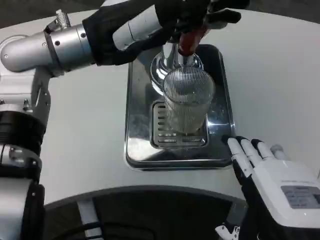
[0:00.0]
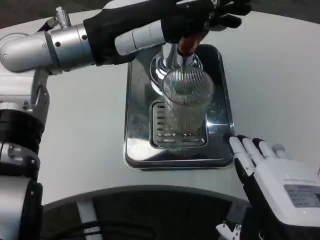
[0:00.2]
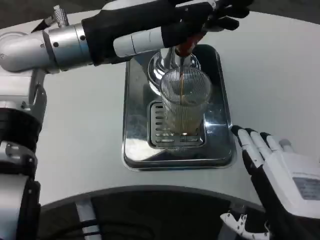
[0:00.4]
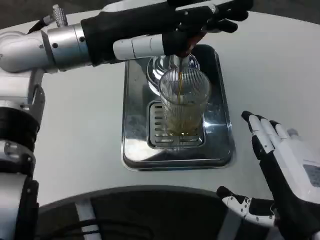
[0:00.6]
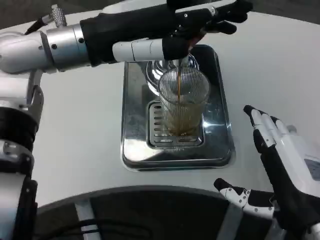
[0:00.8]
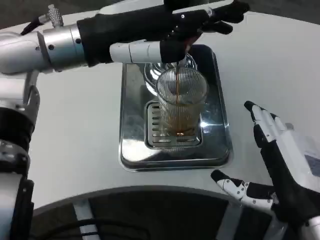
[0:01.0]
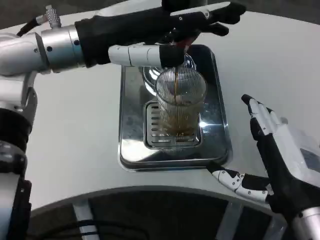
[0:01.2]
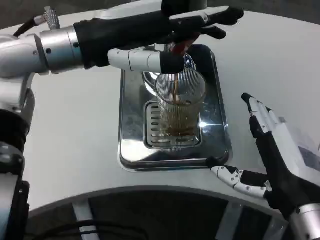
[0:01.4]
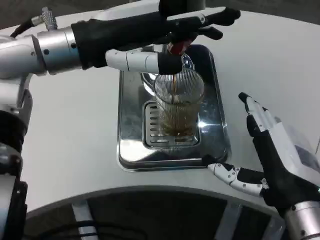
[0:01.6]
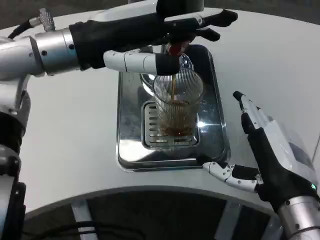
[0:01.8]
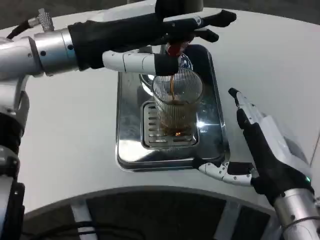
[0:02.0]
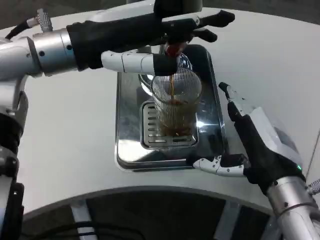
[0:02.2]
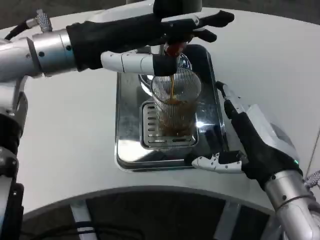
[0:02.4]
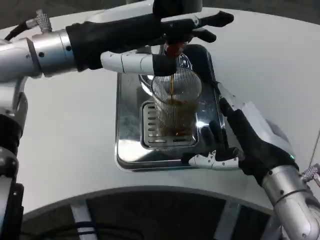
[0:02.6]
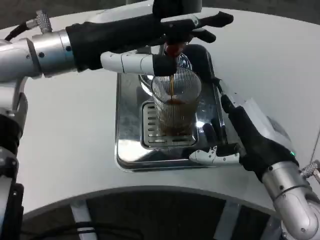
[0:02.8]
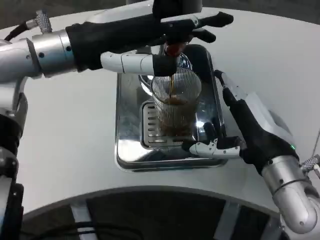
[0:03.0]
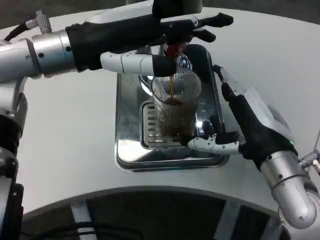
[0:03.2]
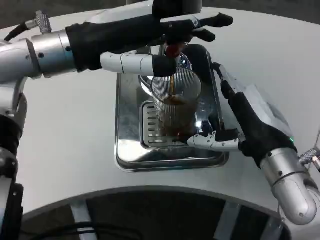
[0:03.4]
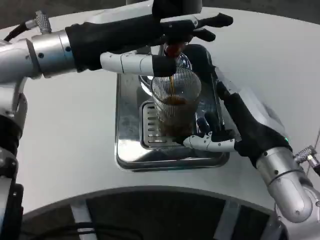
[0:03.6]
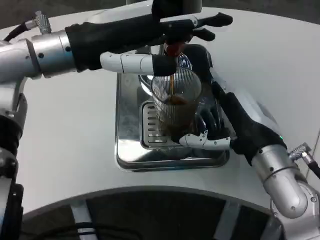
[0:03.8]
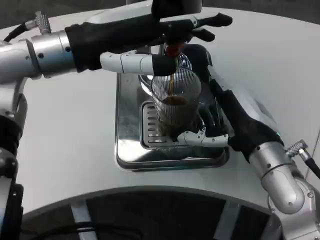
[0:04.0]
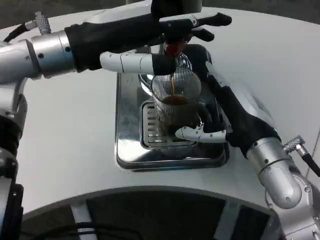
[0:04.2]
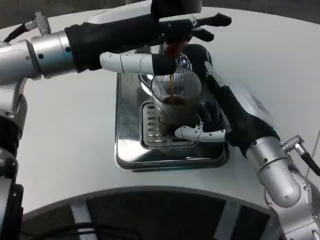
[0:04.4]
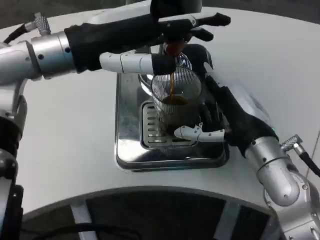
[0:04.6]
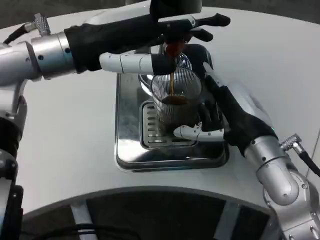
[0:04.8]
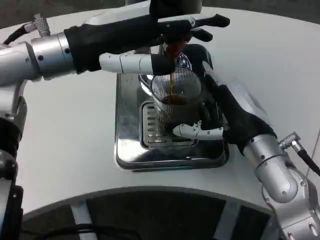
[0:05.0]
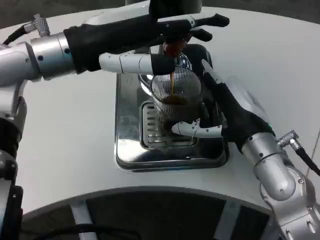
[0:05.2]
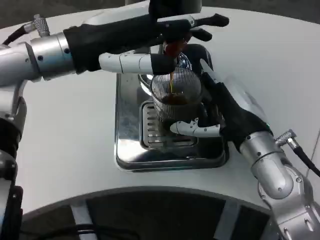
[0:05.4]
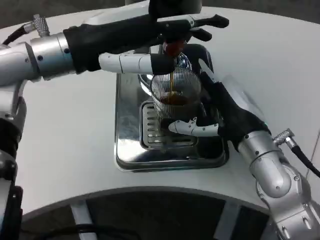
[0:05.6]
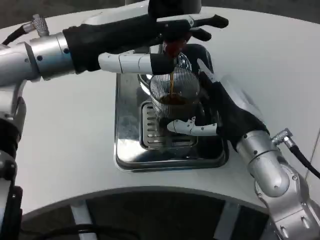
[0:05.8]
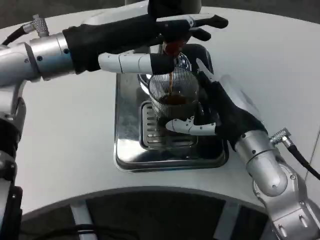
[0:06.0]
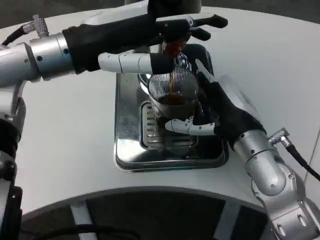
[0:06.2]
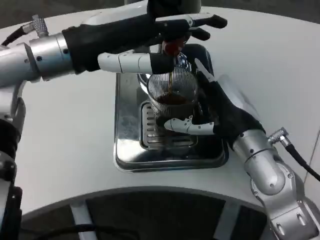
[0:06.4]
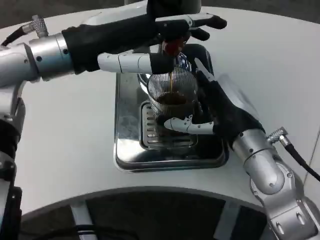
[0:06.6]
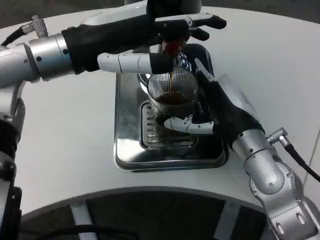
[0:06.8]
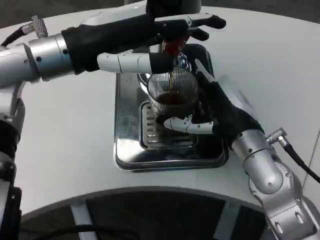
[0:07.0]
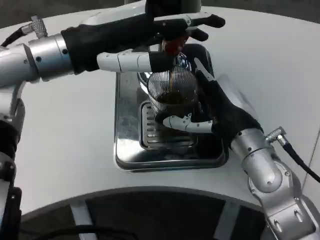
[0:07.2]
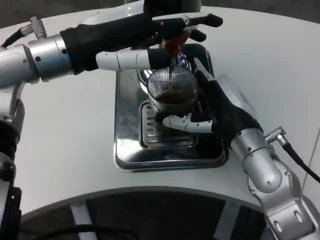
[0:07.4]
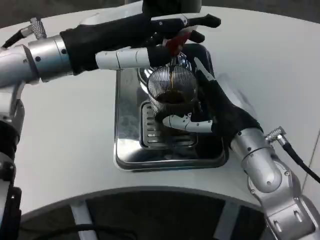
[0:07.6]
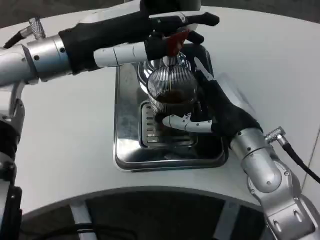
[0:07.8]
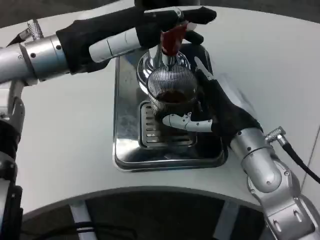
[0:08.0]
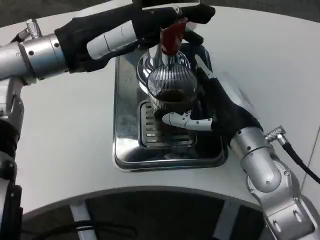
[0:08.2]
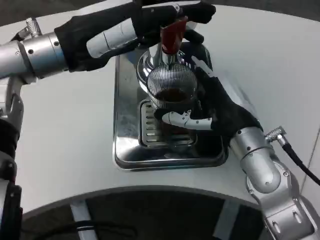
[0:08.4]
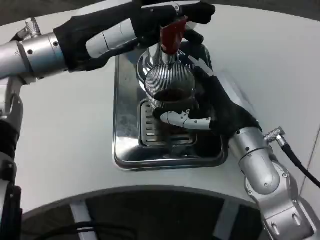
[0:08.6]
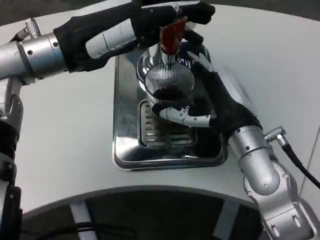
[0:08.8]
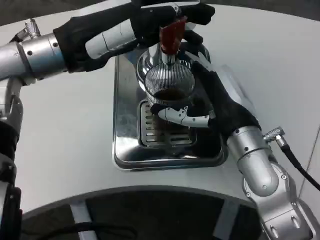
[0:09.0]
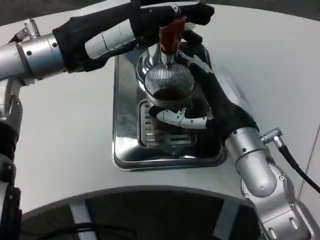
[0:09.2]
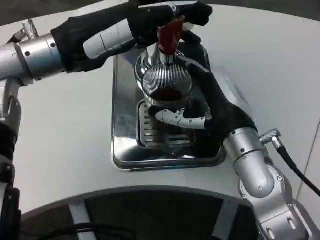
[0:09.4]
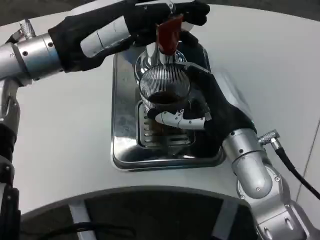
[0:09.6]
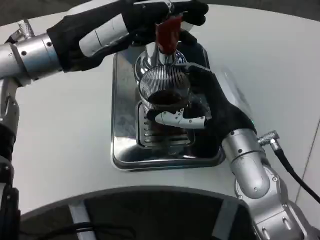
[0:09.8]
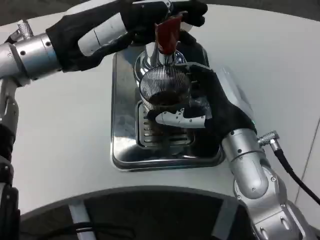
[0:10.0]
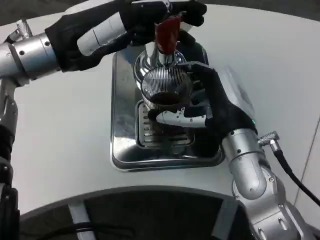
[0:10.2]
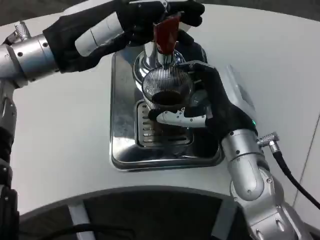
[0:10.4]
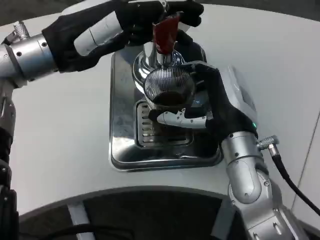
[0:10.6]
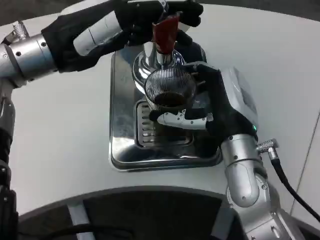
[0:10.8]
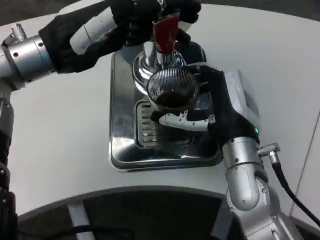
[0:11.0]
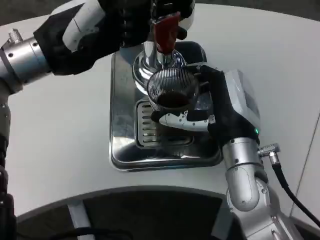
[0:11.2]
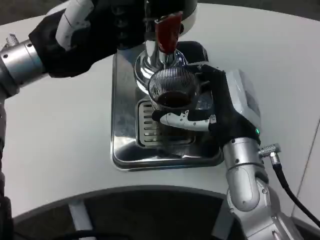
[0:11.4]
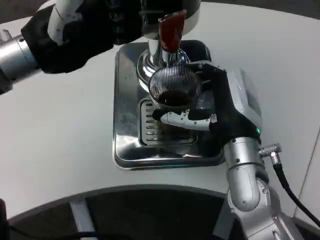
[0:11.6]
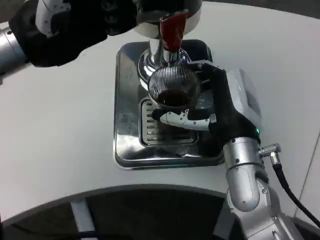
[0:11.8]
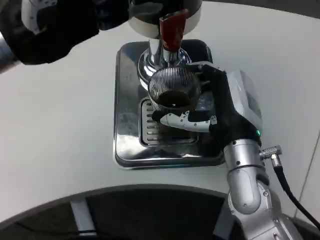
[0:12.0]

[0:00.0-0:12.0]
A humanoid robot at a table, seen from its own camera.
Task of the whole recording: Grasp the cup under the faucet to collect the drink, then remove the cup.
0:00.0 to 0:01.6: The right hand heads forward, covering roughly 10 cm.
0:01.6 to 0:03.0: The right hand moves forward, about 5 cm.
0:03.0 to 0:06.0: The hands move only a little.
0:06.0 to 0:07.6: Both hands stay put.

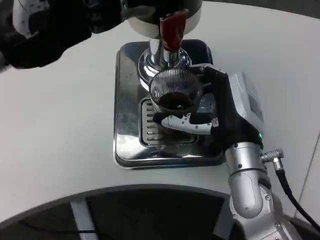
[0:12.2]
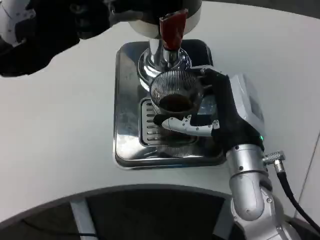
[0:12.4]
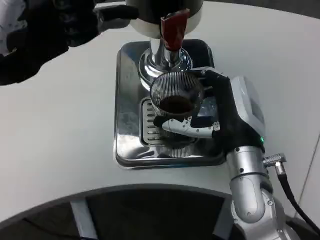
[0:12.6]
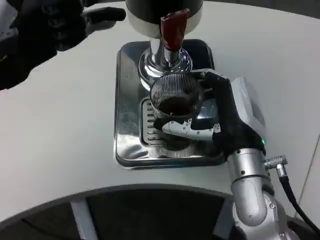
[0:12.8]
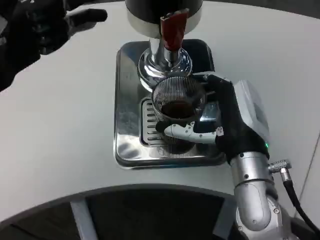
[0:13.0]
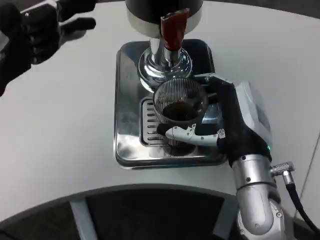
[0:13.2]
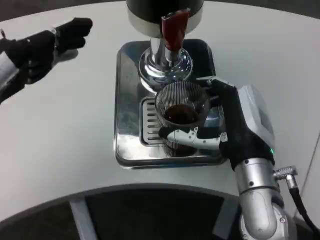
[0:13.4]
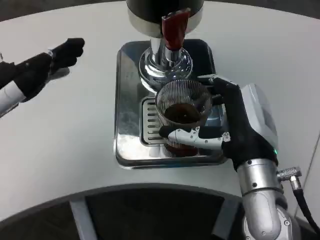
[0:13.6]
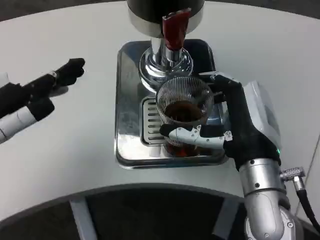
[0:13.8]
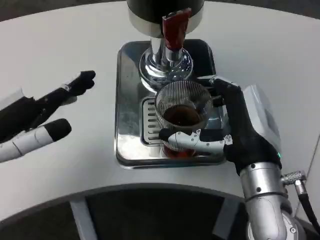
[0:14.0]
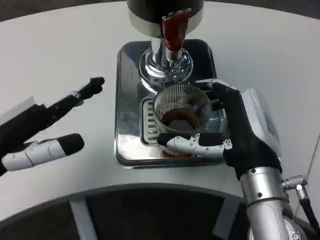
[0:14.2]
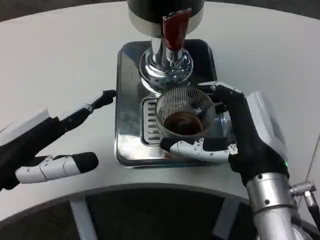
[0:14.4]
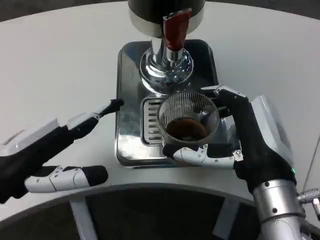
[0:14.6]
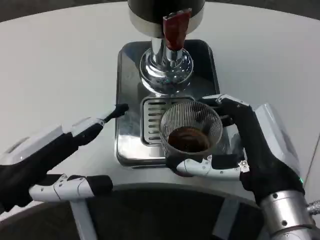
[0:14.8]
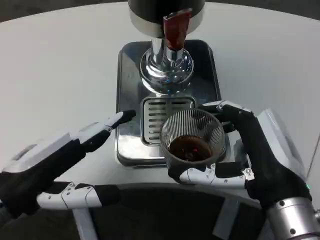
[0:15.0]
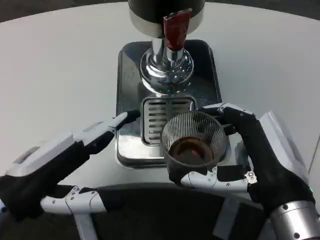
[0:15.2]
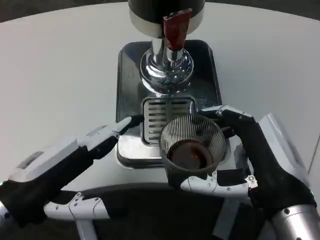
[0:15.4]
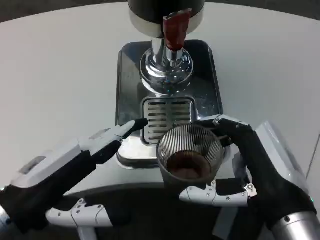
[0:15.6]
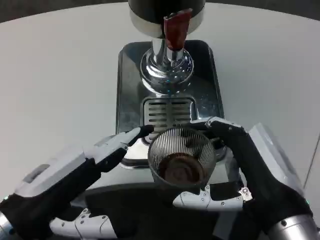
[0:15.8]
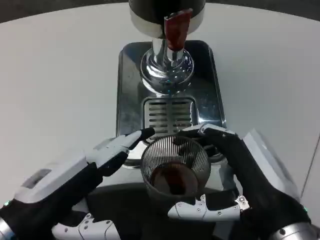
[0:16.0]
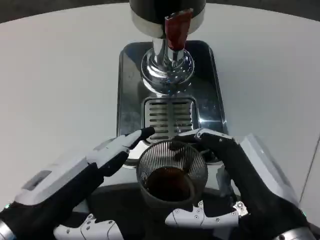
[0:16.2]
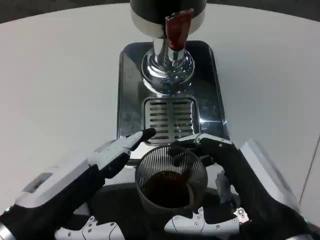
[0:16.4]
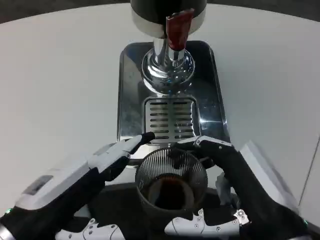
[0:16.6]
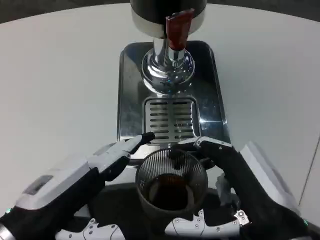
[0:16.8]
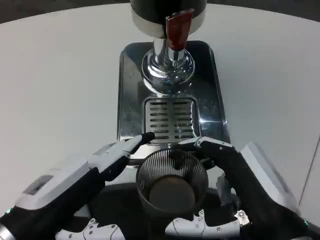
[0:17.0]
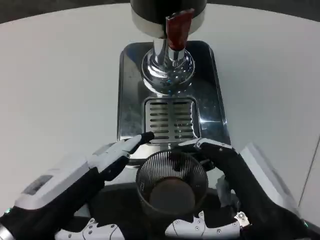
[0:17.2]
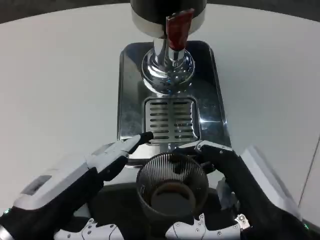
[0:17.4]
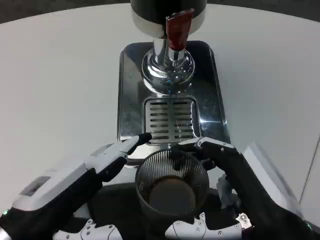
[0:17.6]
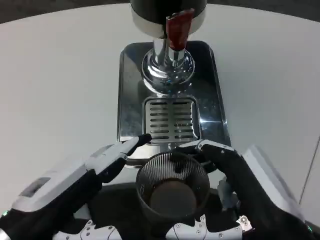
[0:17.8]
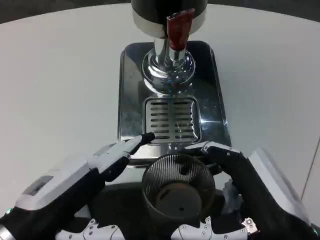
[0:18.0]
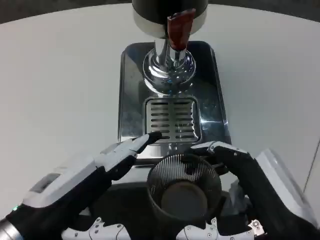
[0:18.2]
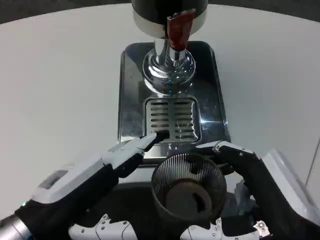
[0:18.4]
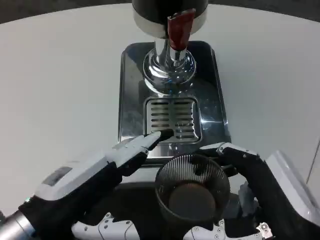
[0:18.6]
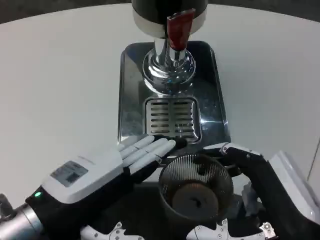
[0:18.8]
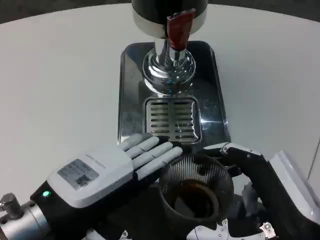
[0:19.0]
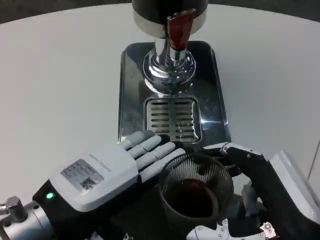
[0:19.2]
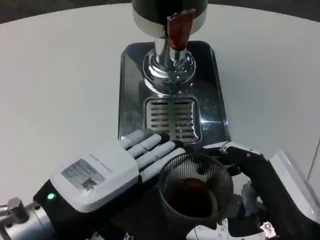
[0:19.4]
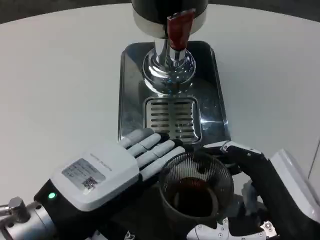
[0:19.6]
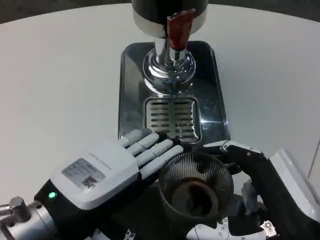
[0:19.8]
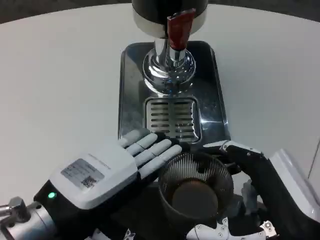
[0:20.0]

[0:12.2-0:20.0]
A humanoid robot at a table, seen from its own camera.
Task of the whole recording: Grasp the cup under the faucet to collect the drink, then remove the cup.
0:12.2 to 0:13.8: The left hand is displaced backward and downward by approximately 10 cm.
0:13.8 to 0:15.4: The right hand goes some 5 cm backward; the left hand shifts some 10 cm downward and to the right.
0:16.8 to 0:18.4: The hands make only small movements.

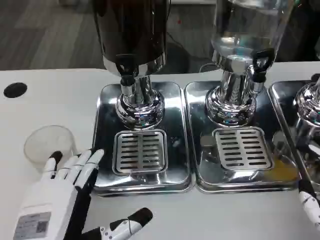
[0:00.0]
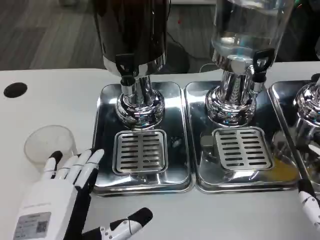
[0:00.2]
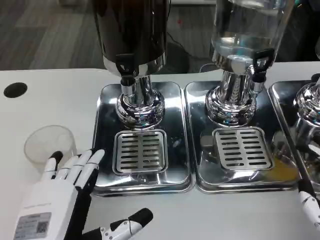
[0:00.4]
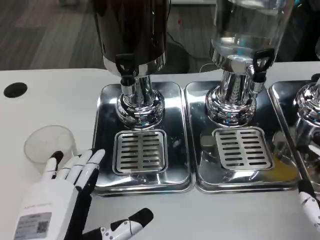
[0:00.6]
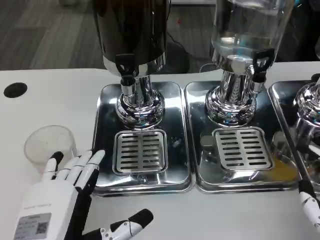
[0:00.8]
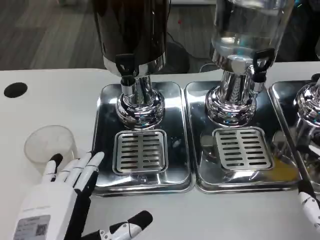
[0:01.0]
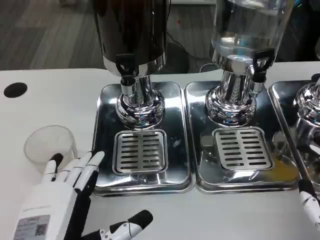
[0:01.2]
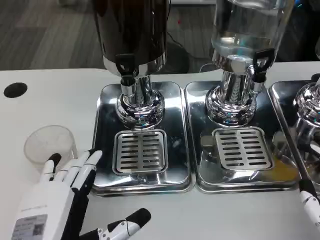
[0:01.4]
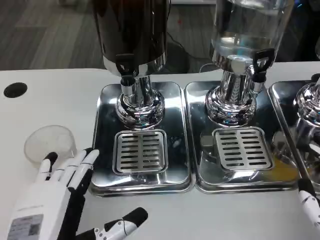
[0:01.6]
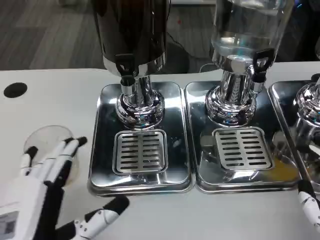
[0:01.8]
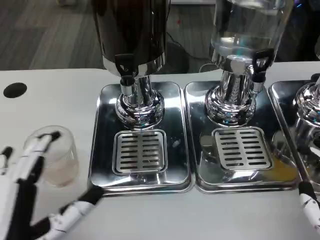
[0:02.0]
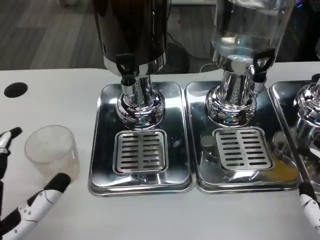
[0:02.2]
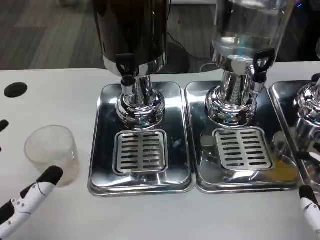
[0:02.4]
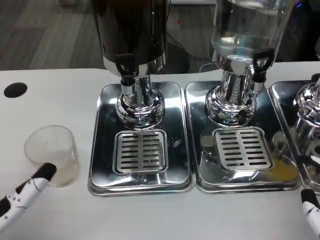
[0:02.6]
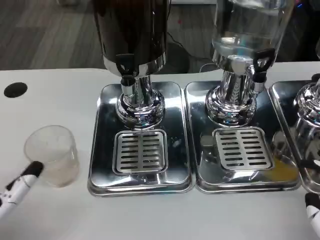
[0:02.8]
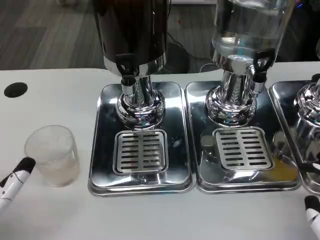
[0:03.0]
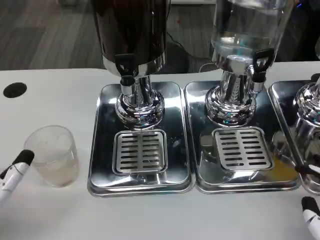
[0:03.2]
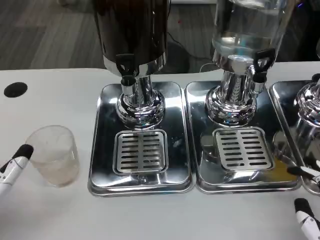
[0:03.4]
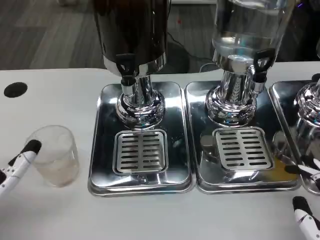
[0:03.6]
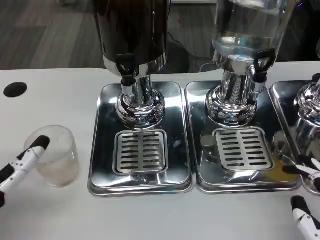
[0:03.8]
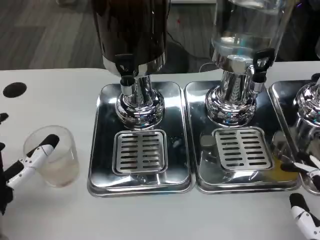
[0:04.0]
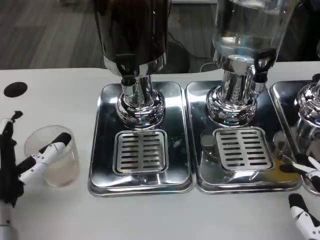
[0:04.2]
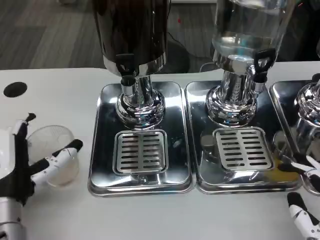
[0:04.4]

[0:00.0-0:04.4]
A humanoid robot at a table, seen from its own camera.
Task of the whole recording: Grasp the cup under the faucet to collect the drink, then remove the cup.
0:00.0 to 0:01.4: Both hands stay about where they are.
0:01.4 to 0:03.0: The left hand shifts approximately 5 cm to the left.
0:03.0 to 0:04.4: The left hand is displaced forward by some 5 cm.
